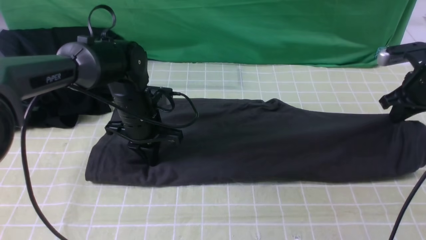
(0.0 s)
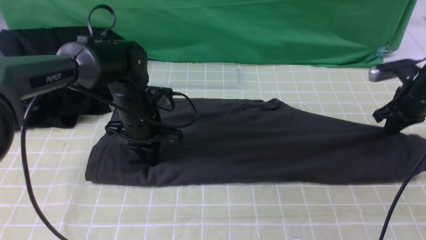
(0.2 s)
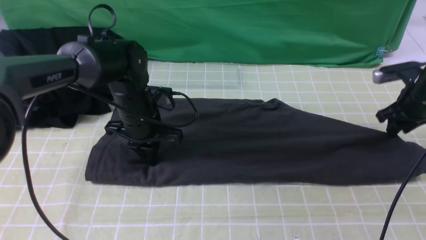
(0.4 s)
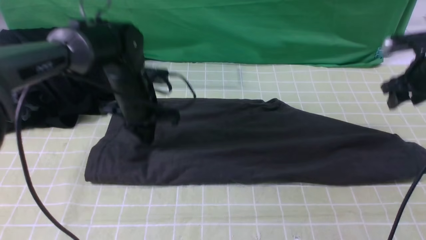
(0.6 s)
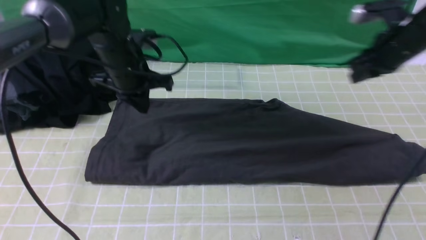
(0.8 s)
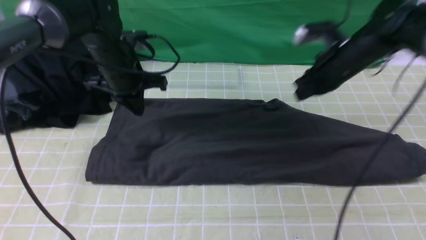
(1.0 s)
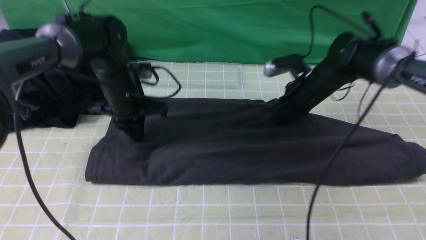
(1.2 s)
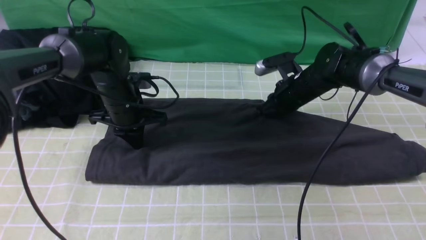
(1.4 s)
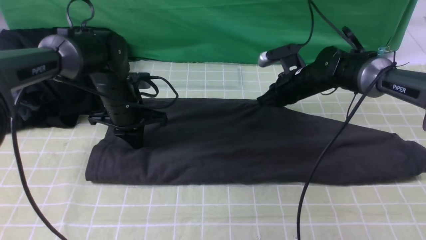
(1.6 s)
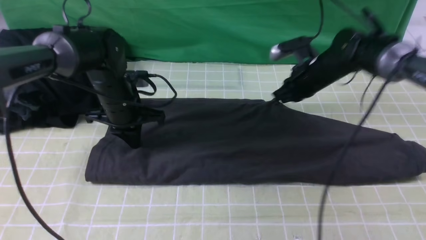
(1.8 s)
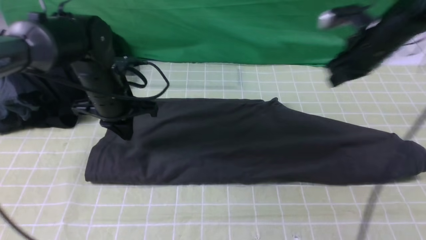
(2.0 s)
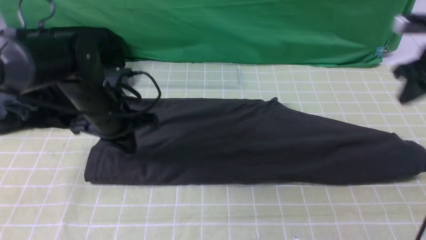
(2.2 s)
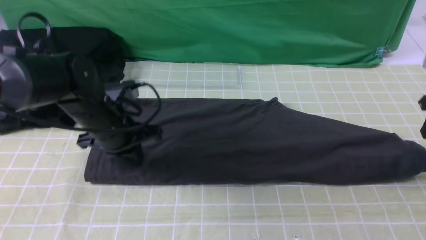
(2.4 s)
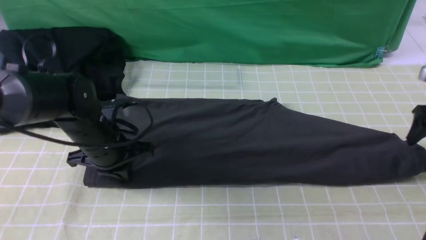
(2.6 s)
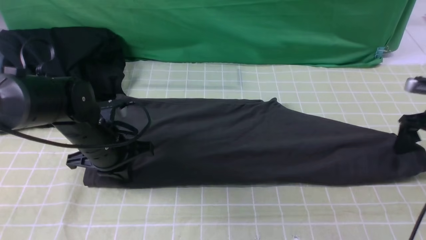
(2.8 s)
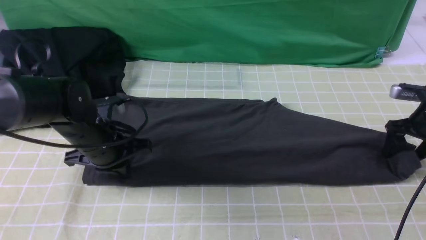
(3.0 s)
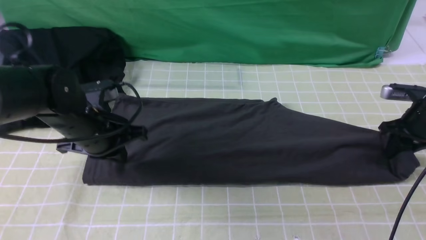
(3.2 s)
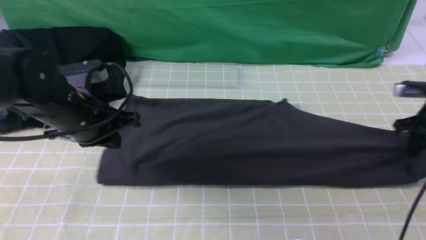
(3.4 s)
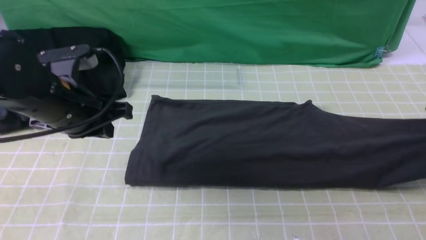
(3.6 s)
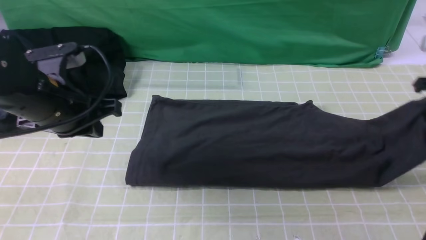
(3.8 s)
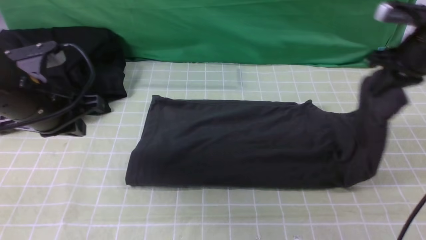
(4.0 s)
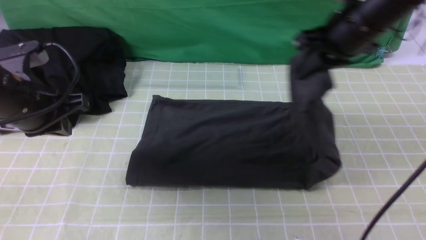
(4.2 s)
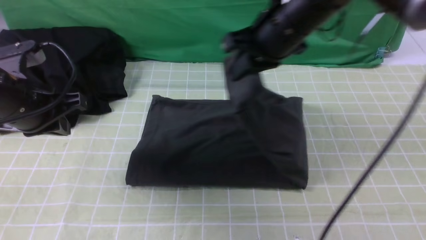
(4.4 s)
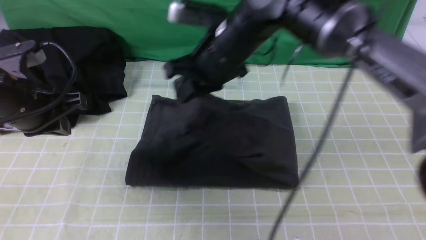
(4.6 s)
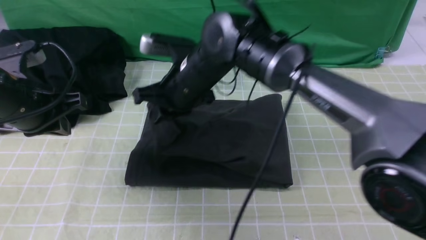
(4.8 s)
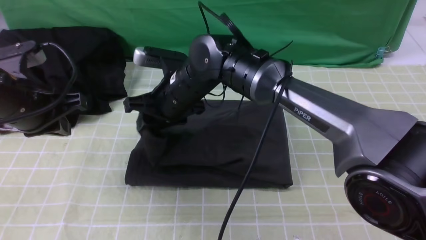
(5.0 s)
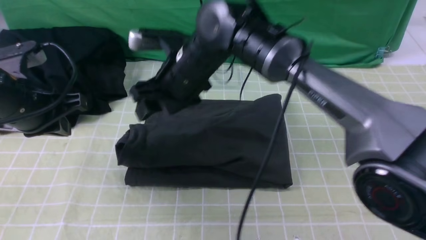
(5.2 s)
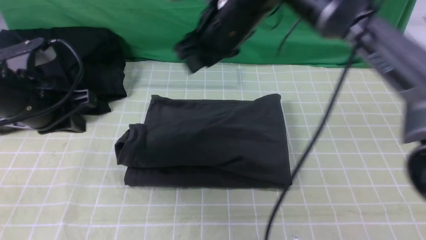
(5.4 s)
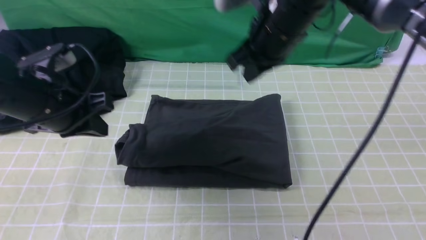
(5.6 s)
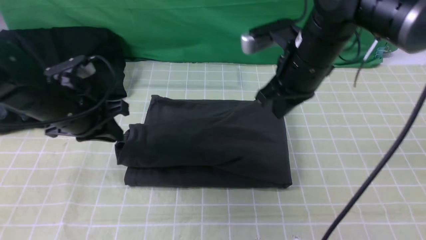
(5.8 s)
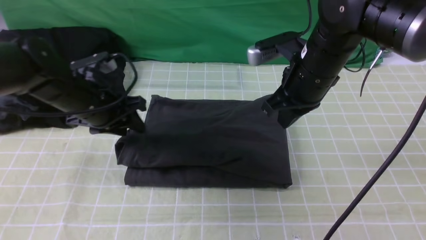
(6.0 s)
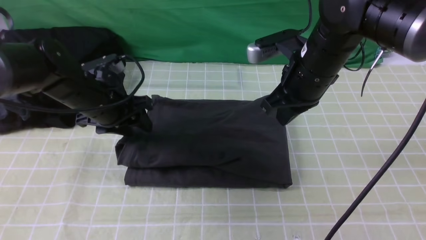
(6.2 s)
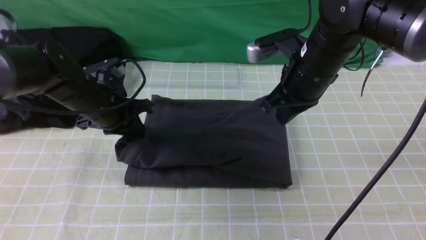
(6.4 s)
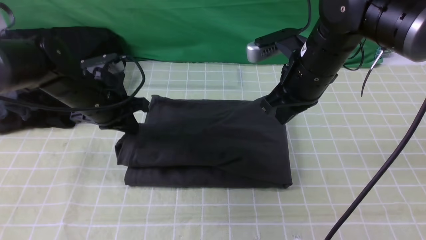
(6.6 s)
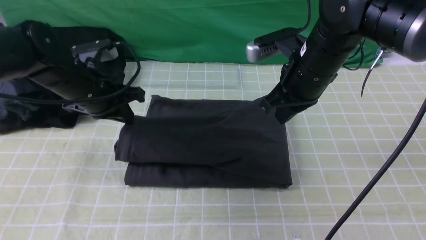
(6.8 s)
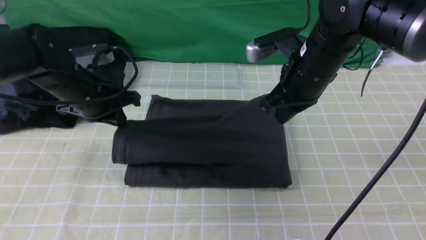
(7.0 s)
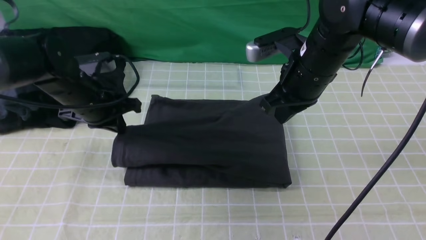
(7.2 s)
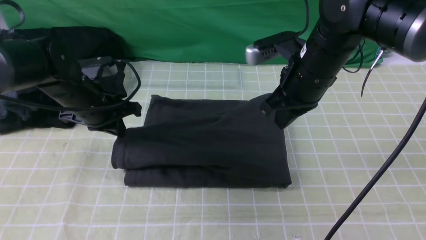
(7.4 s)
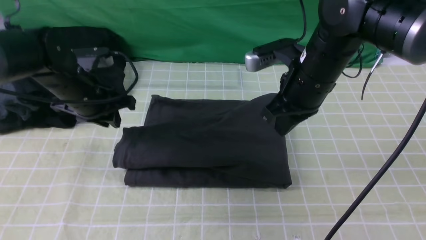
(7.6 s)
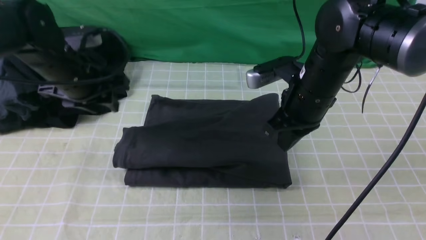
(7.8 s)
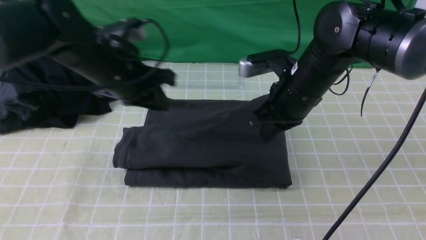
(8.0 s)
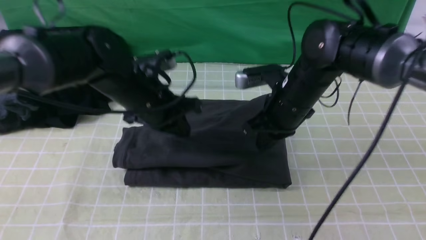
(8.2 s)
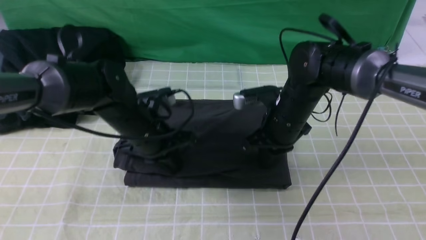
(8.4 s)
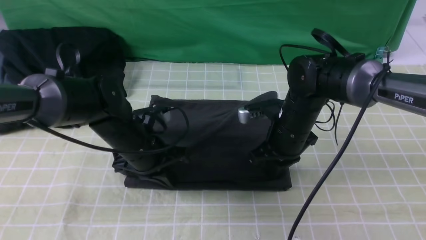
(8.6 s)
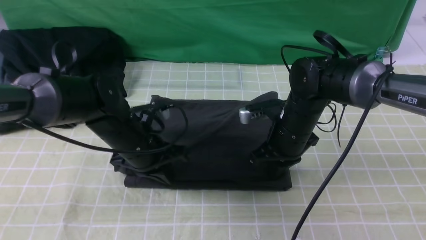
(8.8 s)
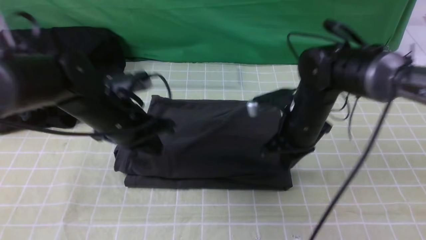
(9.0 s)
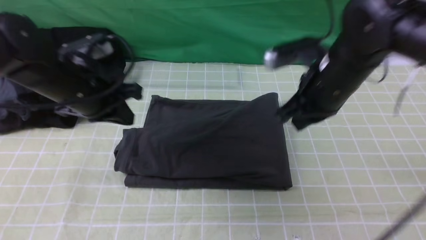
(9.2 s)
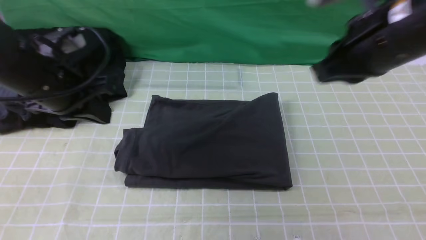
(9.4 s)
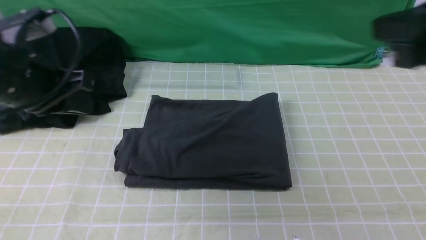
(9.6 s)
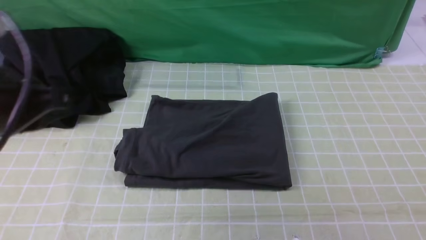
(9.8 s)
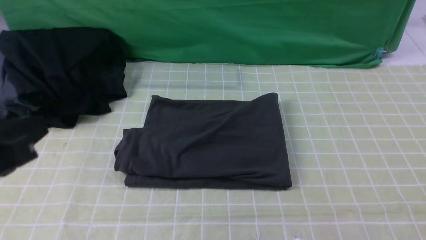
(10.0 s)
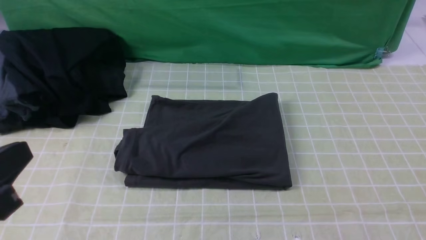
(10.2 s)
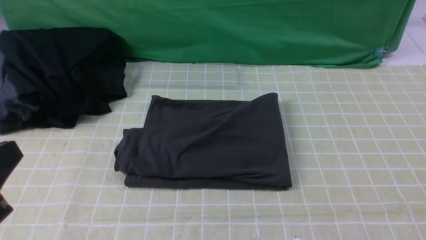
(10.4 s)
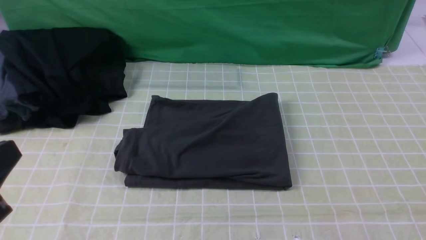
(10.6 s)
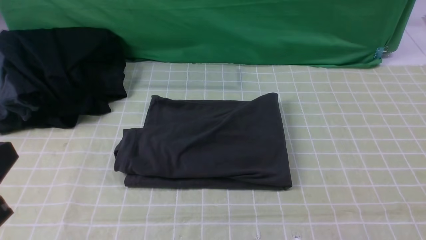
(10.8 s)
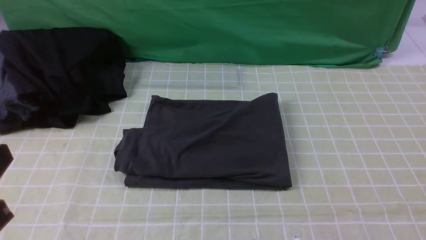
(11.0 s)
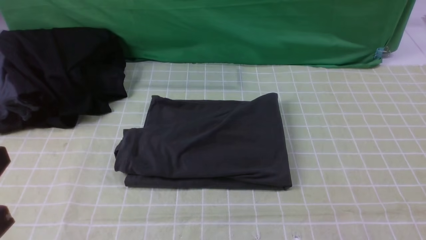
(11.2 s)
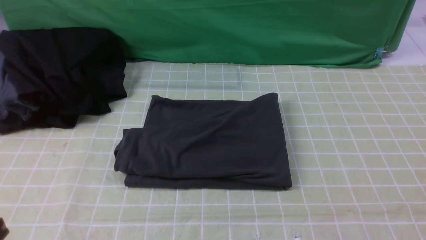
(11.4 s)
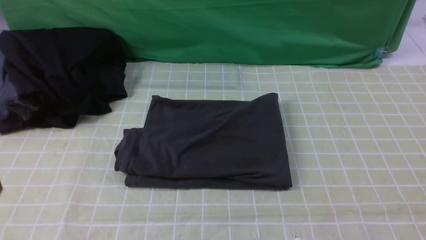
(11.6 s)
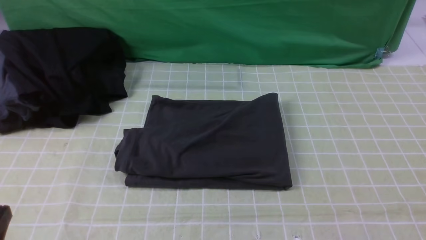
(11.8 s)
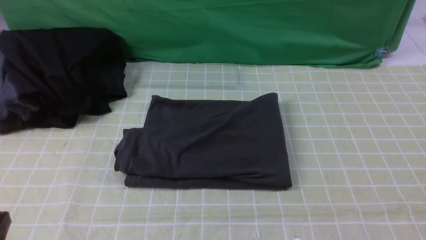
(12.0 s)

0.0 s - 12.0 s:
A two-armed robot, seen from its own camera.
Step, 0.0 s - 3.2 s: use the right arm to clamp the right edge of the fabric.
Step, 3.4 s - 5.2 s: use the right arm to drag the right edge of the fabric to the left and folds it over the left edge.
0.0 s - 1.6 s: The right gripper travels to the left by approximately 20 cm, and opens and closes again.
1.6 s - 3.0 s: The right gripper goes some 20 cm to the right, and opens its fingers. Meanwhile the left gripper is displaced backward by some 10 cm.
3.0 s - 4.4 s: The left gripper is displaced upward and to the left by about 10 cm. Meanwhile the right gripper shifts some 35 cm to the left and upward, and closes up.
4.4 s - 6.0 s: The left gripper goes approximately 10 cm forward, downward and to the right, and opens; the right gripper travels to the left and back again, some 10 cm each way, and opens, then closes once more.
6.0 s - 7.6 s: The left gripper closes, then opens again.
7.6 s - 9.0 s: The left gripper shifts about 5 cm to the right, and closes up.
9.0 s - 10.4 s: The left gripper shifts roughly 25 cm backward. Meanwhile the right gripper moves backward, to the right and upward, some 35 cm.
10.4 s - 12.0 s: The left gripper moves downward, some 10 cm.
